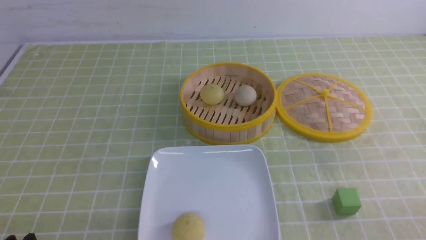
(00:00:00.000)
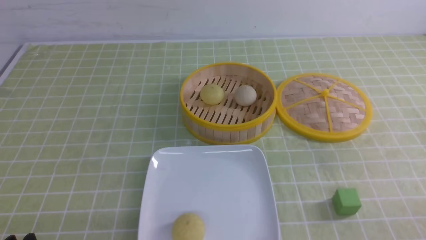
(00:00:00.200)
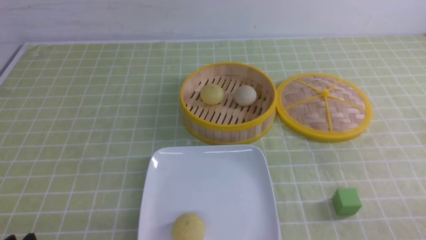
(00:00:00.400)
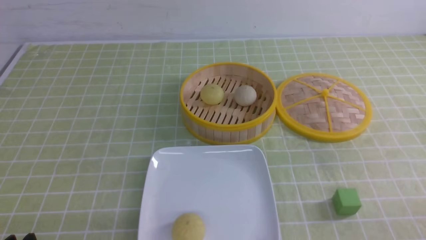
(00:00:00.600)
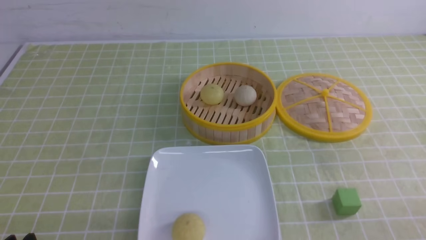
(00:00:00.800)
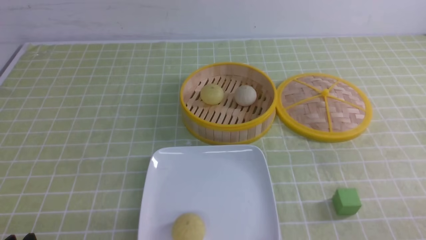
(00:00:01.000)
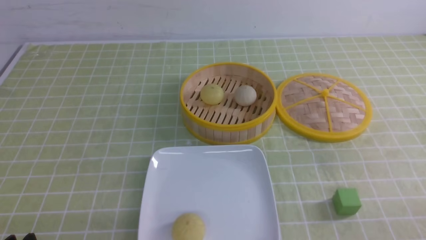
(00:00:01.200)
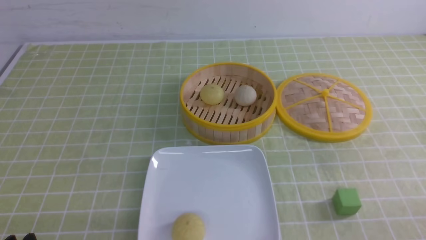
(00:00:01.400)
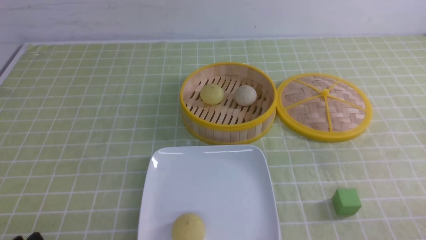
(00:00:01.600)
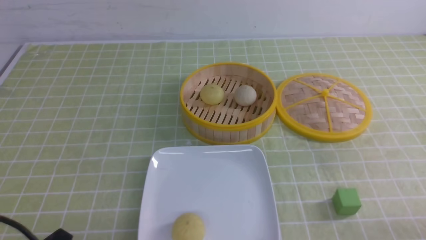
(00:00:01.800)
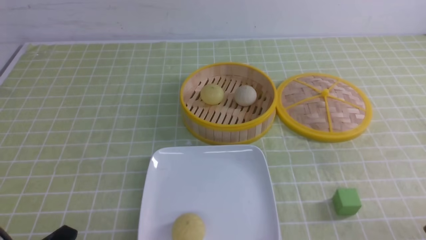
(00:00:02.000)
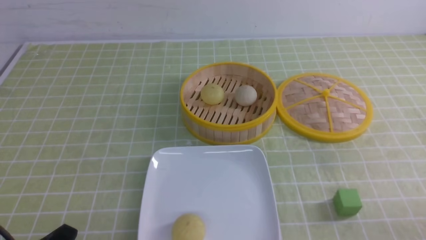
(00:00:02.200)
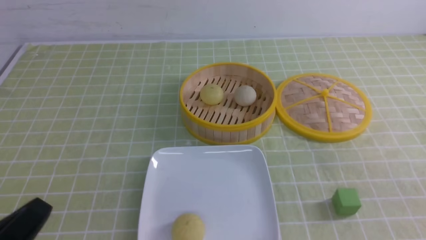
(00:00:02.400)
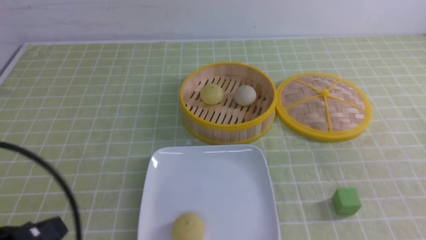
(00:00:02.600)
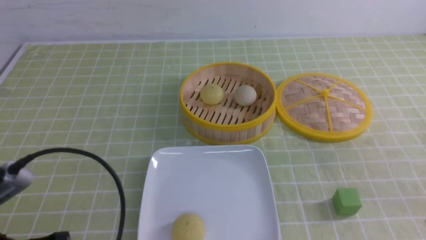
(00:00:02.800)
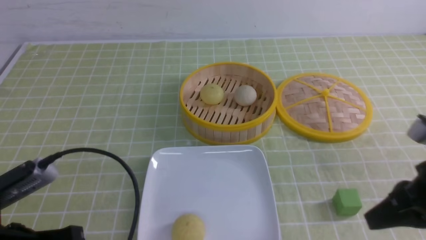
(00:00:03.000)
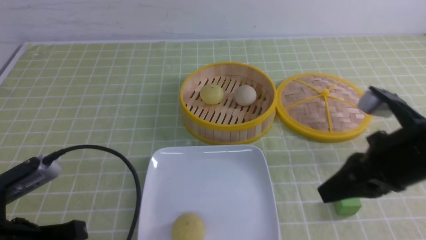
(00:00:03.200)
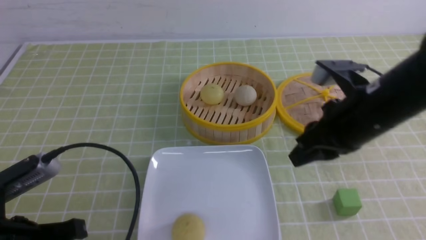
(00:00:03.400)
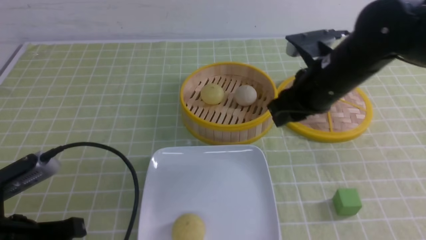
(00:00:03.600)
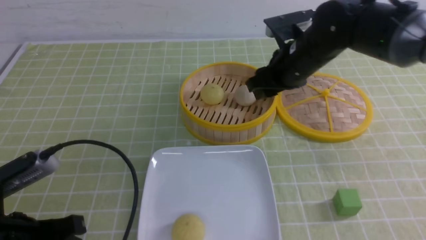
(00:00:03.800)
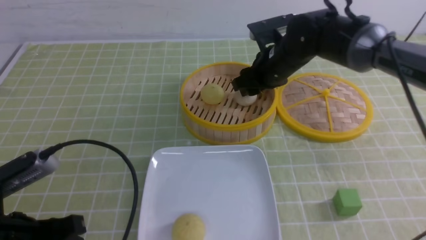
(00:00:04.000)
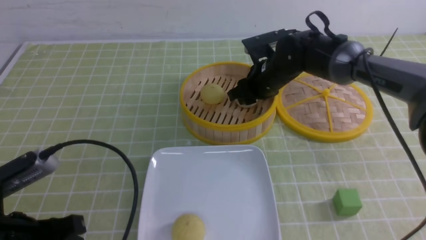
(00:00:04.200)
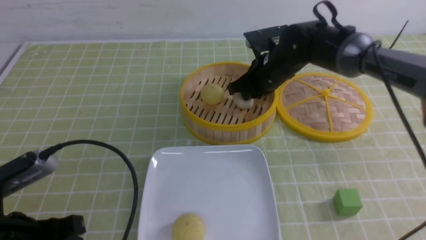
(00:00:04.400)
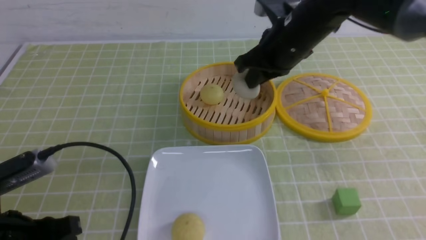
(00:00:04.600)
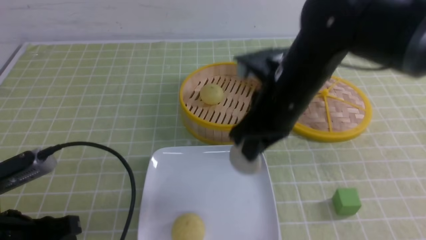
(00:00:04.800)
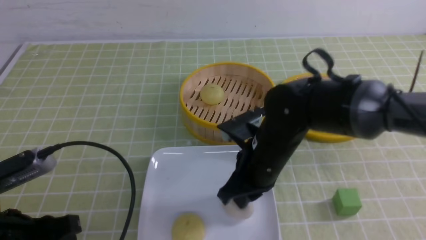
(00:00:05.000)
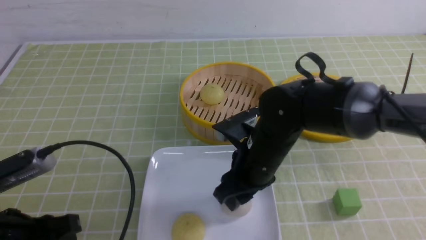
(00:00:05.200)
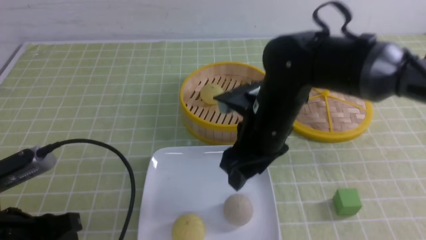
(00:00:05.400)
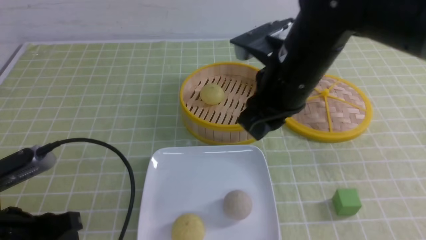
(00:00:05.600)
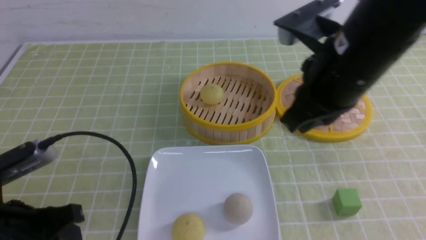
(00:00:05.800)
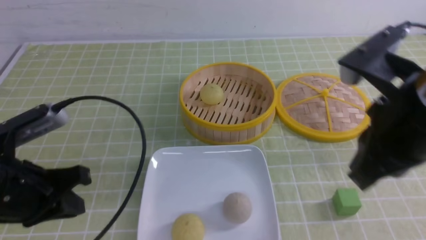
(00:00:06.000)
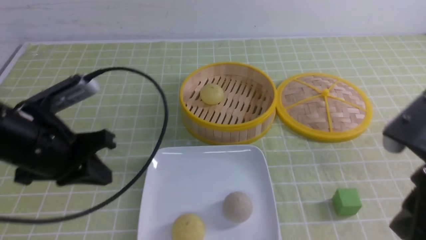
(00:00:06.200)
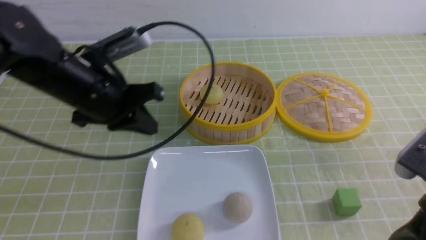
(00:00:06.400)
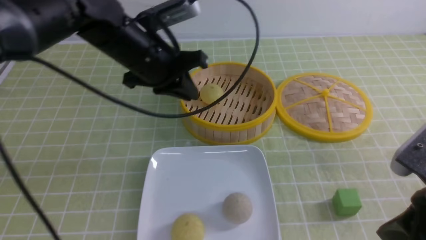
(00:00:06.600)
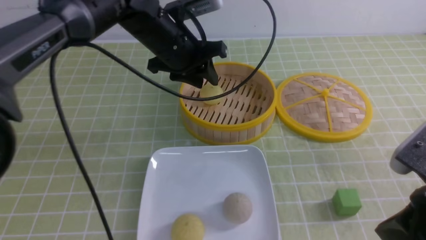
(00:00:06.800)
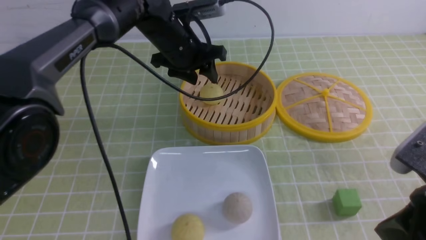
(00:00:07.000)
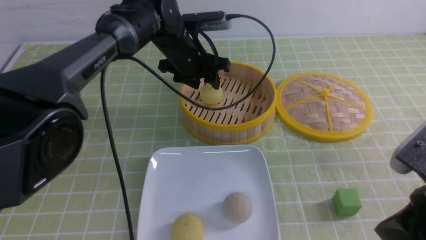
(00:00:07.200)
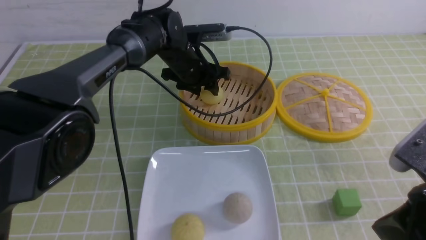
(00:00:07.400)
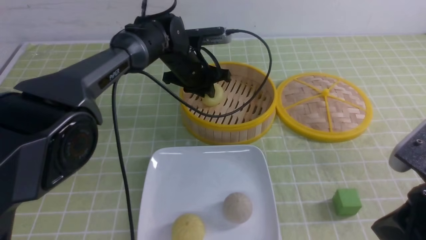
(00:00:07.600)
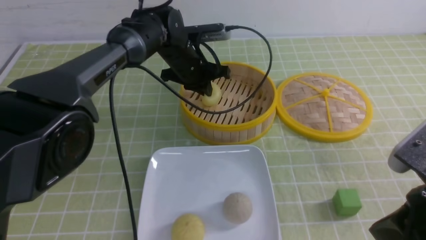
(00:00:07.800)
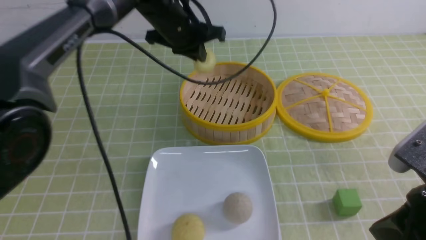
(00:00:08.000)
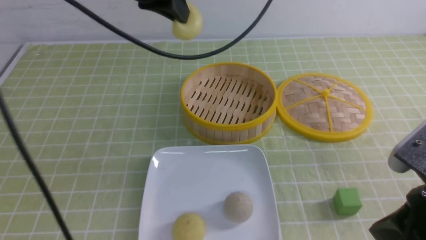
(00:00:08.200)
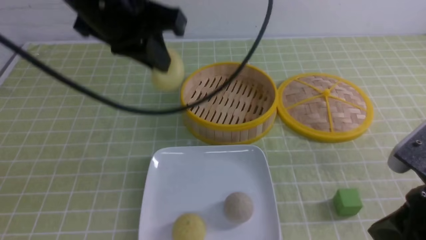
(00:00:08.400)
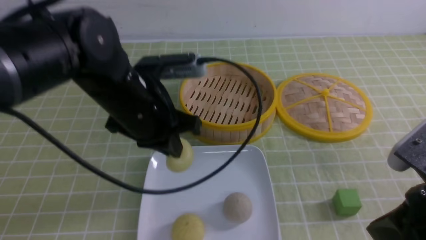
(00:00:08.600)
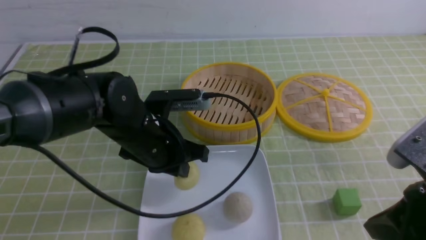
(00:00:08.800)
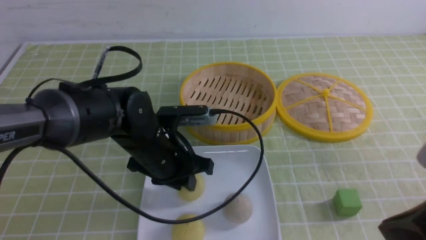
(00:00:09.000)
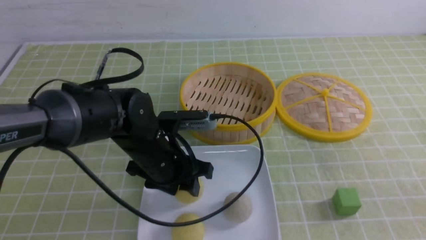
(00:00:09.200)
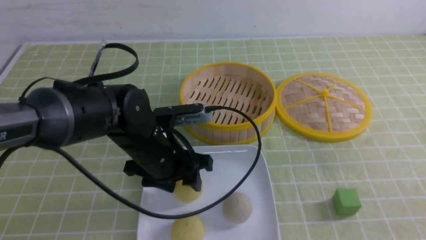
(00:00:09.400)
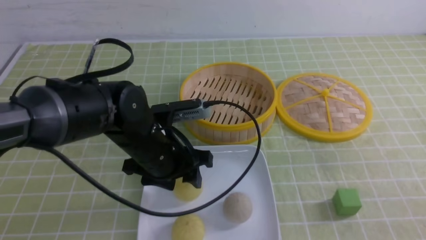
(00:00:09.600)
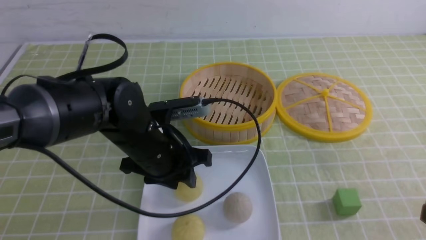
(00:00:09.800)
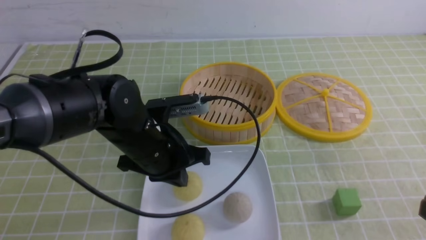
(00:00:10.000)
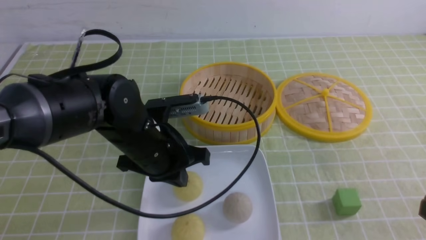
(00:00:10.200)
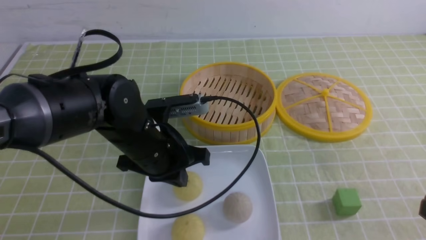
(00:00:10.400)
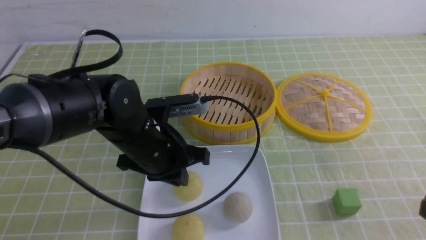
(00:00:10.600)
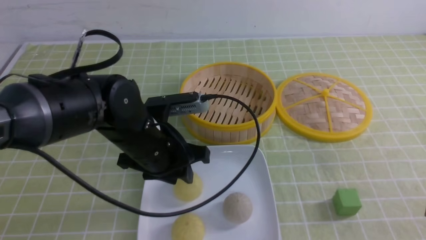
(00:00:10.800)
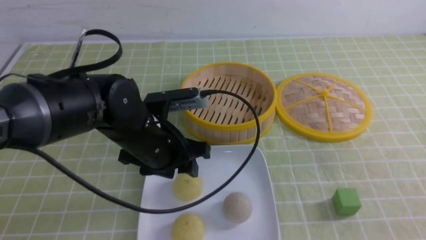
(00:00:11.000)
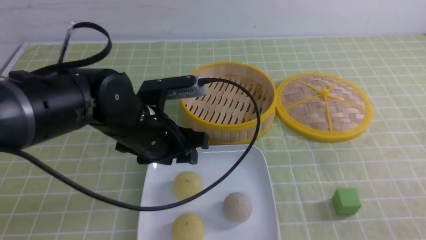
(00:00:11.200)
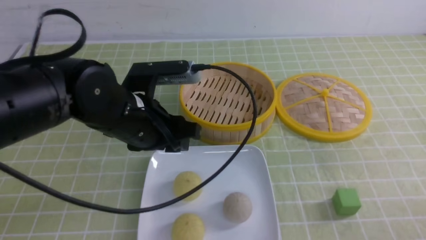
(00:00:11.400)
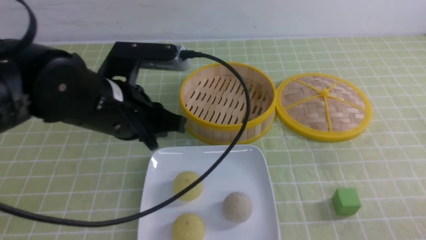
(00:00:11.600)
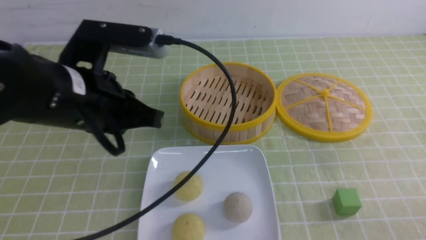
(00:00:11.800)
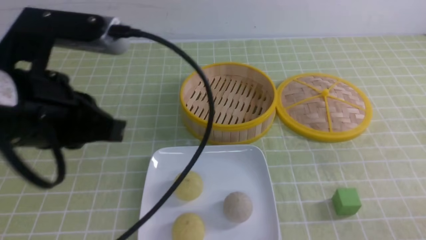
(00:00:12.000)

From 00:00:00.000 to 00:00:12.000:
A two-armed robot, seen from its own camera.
Step, from 00:00:00.000 to 00:00:04.400: use the right arm to grab the steamed stuffed bun that is closest to it.
Step, from 00:00:04.600 to 00:00:05.200: use the right arm to put the steamed stuffed bun into the plate.
Step, from 00:00:05.600 to 00:00:07.600: use the left arm to grab the steamed stuffed bun that is closest to it.
Step, from 00:00:08.000 to 00:00:11.000: use the left arm to put the steamed stuffed bun into the plate.
From 00:00:01.600 to 00:00:03.000: The left gripper is displaced upward and forward by some 10 cm, and closes, while the right gripper is displaced forward, upward and to the left by approximately 20 cm.
From 00:00:03.000 to 00:00:04.400: The right gripper moves forward and to the left, approximately 30 cm, and opens, then closes again; the left gripper opens up.
From 00:00:04.400 to 00:00:06.000: The left gripper shifts approximately 5 cm forward, and closes its fingers, while the right gripper heads backward, covering roughly 25 cm, and opens and closes again.
From 00:00:06.000 to 00:00:07.600: The left gripper is displaced forward and to the right by some 35 cm, and opens, then closes once more. Meanwhile the right gripper travels downward and backward by about 10 cm.
From 00:00:07.600 to 00:00:09.000: The left gripper travels backward by roughly 20 cm, and travels upward and back again, some 20 cm each way.
From 00:00:09.000 to 00:00:10.400: The left gripper closes. The right gripper ends up some 5 cm from where it was.
From 00:00:10.400 to 00:00:12.000: The left gripper travels upward, backward and to the left by roughly 20 cm, and opens and closes again; the right gripper heads downward, covering approximately 10 cm.

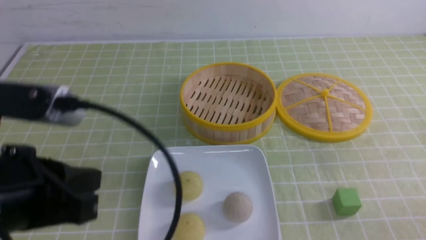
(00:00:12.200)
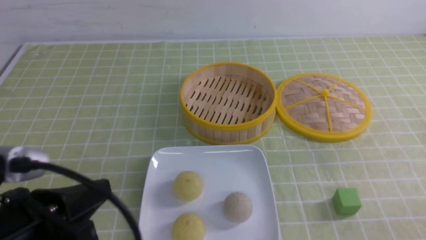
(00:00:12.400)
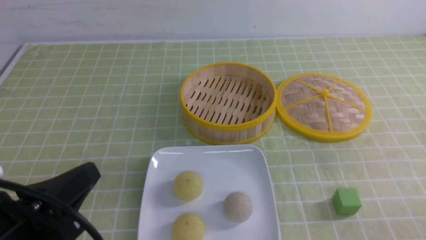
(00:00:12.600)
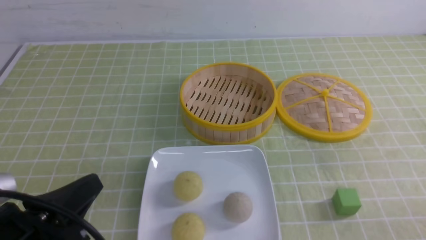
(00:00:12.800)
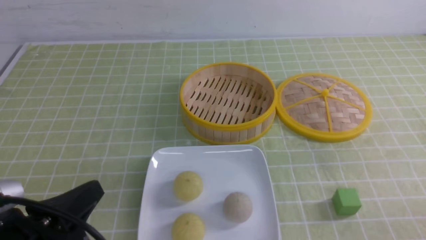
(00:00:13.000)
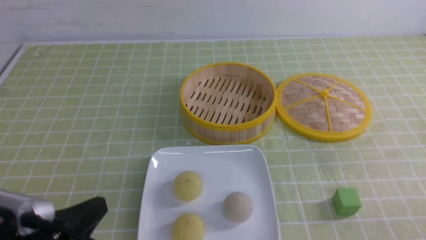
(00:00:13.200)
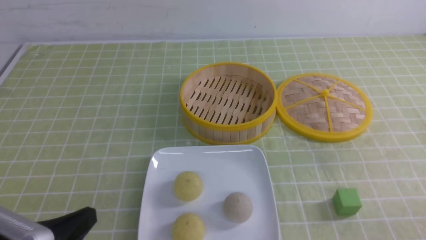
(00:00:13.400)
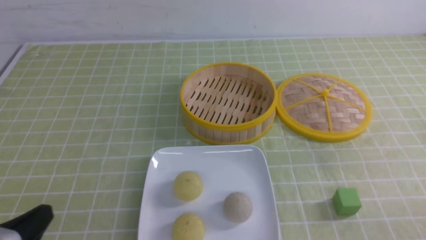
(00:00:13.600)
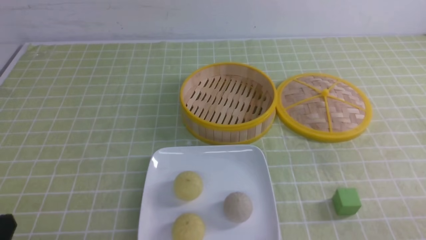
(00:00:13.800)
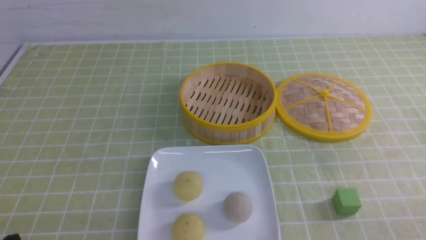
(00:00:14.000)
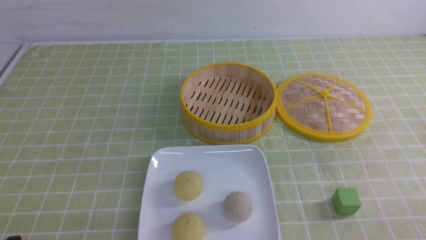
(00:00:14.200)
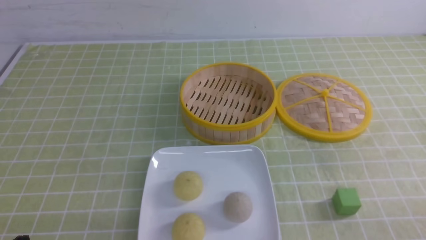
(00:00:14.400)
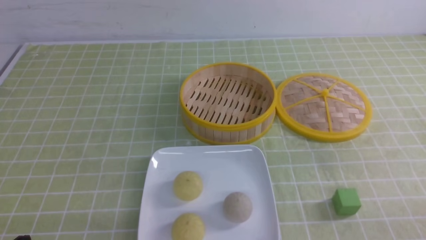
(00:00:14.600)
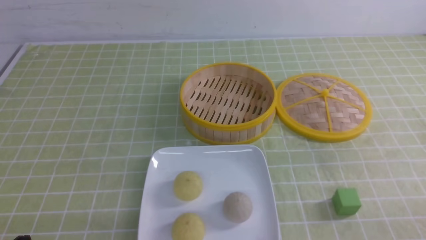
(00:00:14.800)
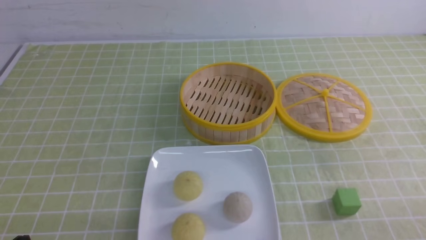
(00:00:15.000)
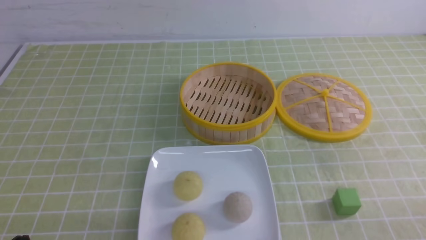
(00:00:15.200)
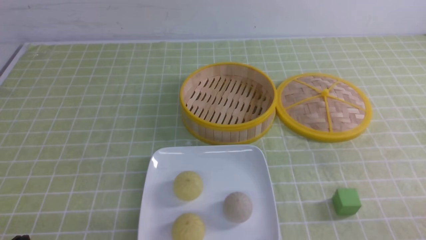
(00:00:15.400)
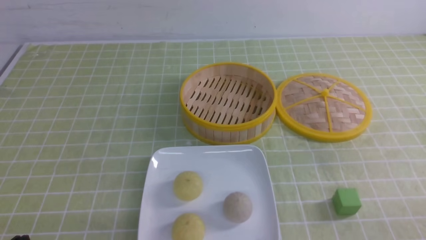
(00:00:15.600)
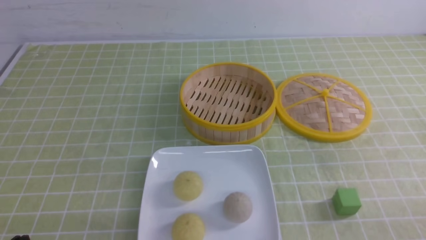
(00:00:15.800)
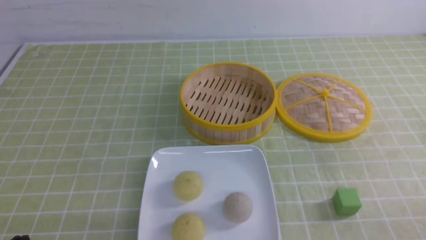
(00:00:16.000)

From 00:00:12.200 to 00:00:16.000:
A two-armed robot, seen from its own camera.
From 00:00:12.200 to 00:00:13.400: The left gripper moves downward, about 10 cm.
From 00:00:13.400 to 00:00:14.800: The left gripper is displaced downward by some 5 cm.
From 00:00:14.800 to 00:00:16.000: The two grippers keep their place.
